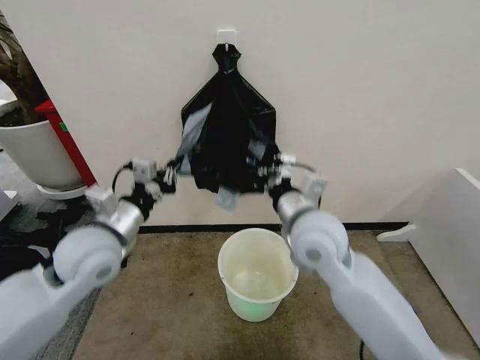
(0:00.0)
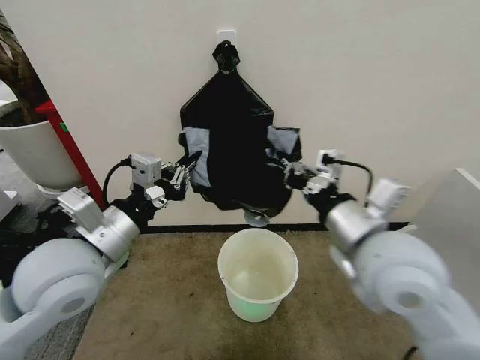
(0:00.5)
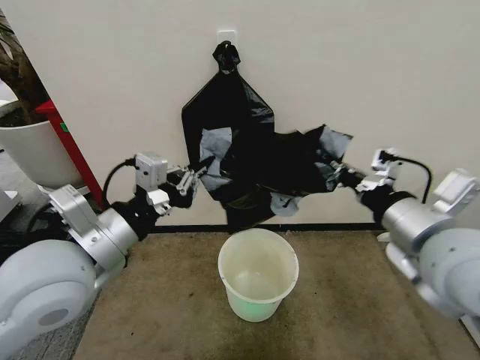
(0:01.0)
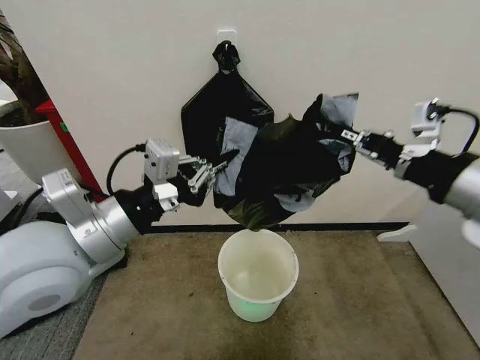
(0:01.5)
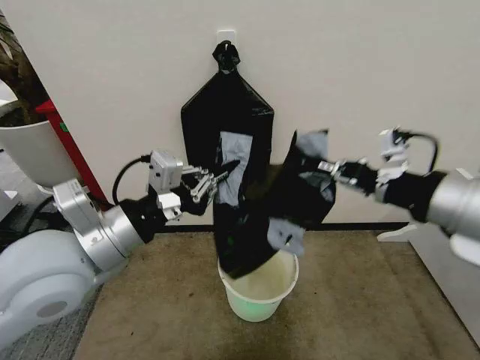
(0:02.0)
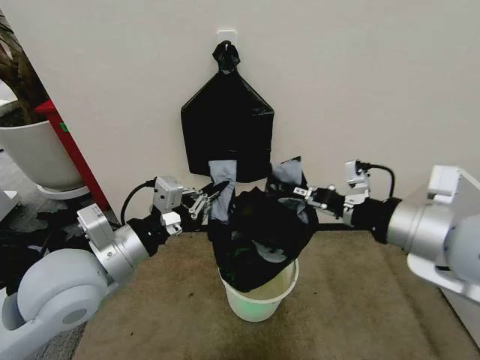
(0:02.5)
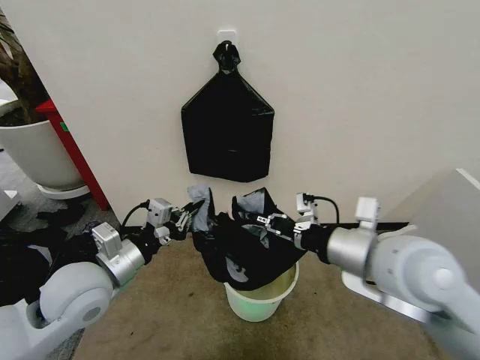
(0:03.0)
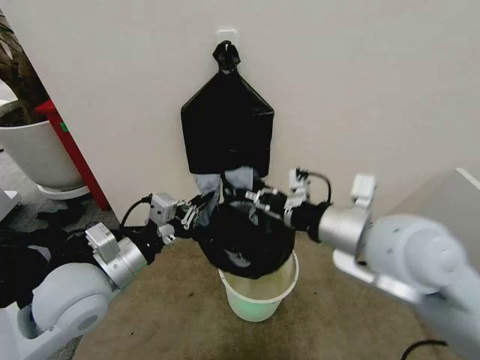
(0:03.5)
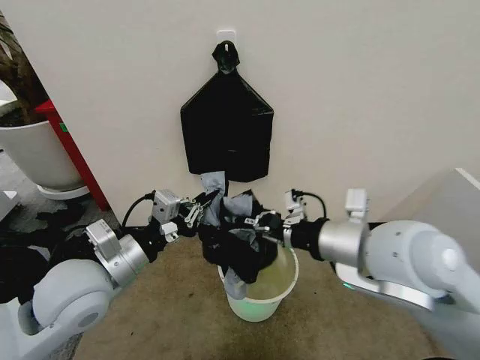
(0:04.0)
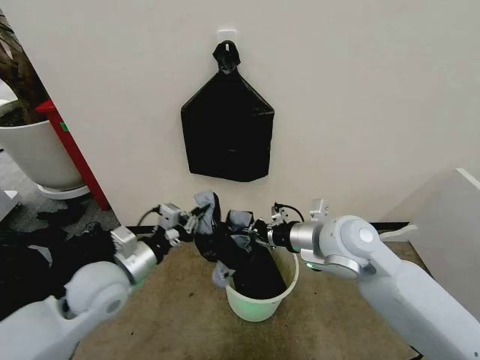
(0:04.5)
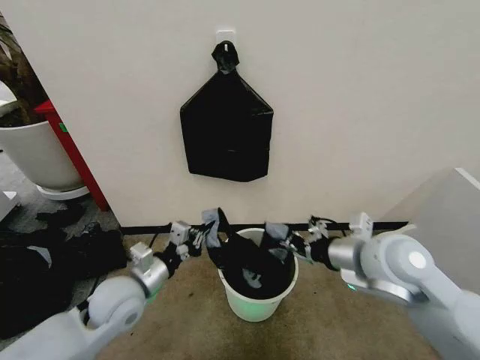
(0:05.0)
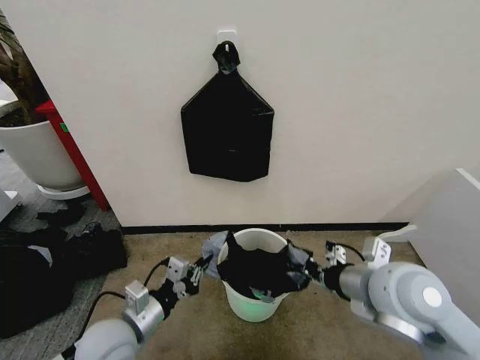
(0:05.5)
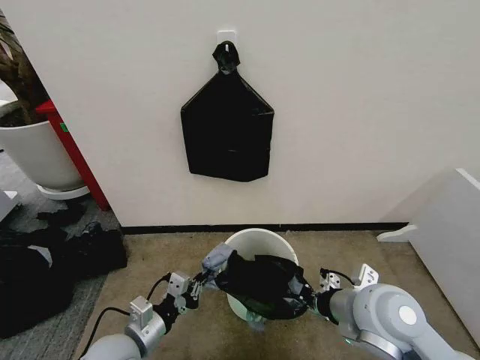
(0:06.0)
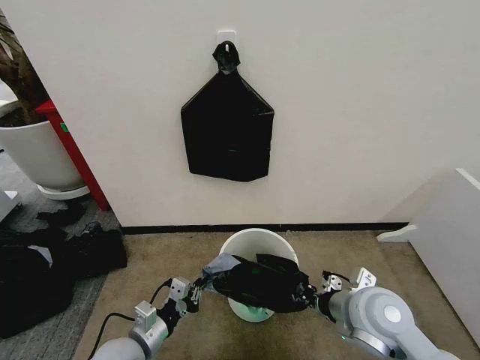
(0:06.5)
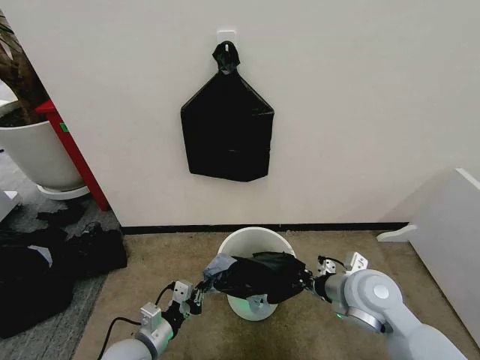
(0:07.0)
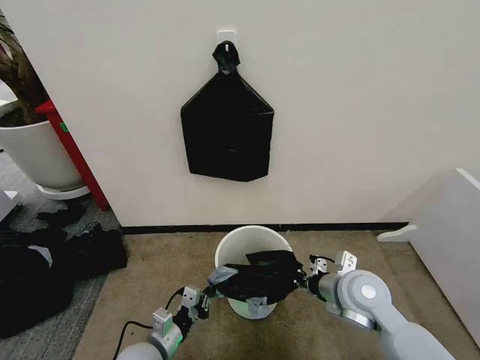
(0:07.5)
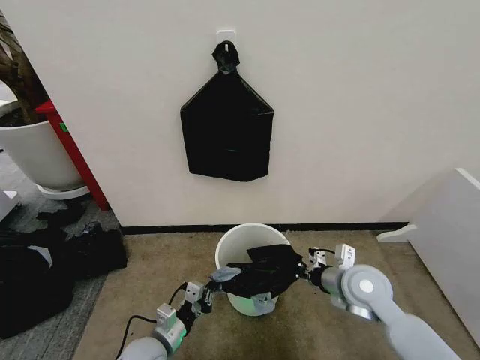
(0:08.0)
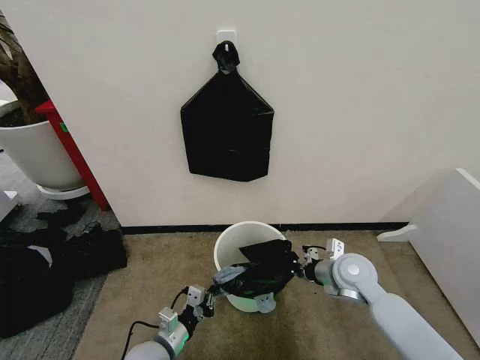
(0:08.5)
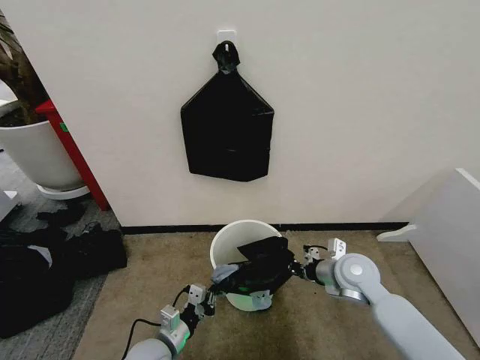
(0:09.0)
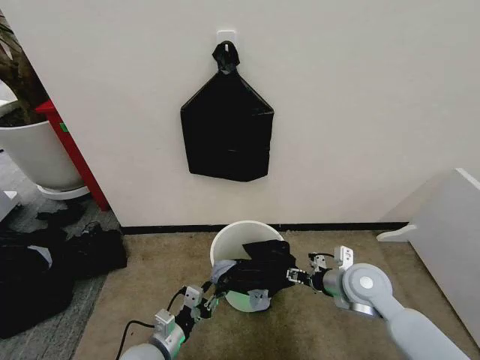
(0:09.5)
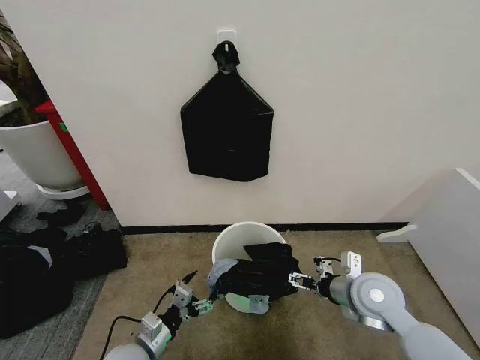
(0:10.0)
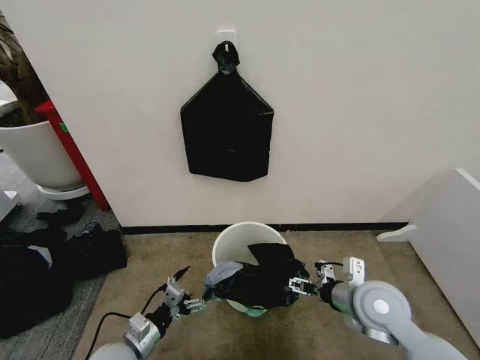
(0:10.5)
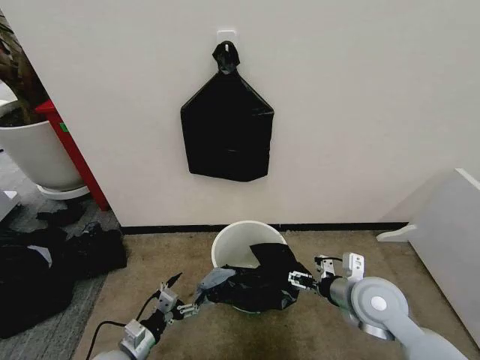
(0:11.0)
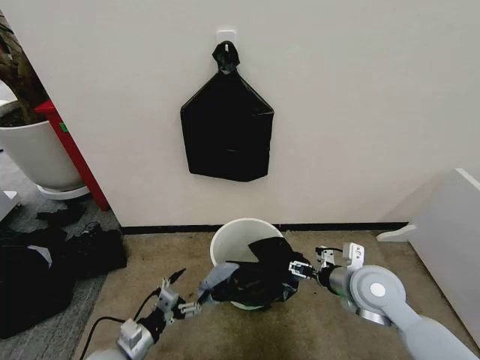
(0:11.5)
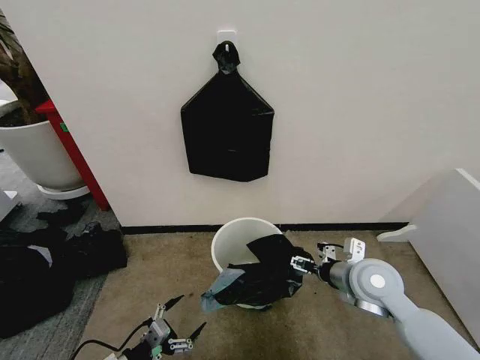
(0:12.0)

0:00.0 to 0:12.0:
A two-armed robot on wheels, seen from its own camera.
Task of the whole recording: Place the garbage bag over the trash bin.
0:00.0 to 0:02.0: The left gripper heads upward and backward, covering approximately 10 cm; the right gripper goes approximately 25 cm to the right, upward and backward.
0:02.0 to 0:04.0: The right gripper shifts approximately 10 cm to the left and downward, while the left gripper shifts approximately 10 cm downward.
0:04.0 to 0:06.0: Both grippers travel together downward, some 15 cm.
0:06.0 to 0:08.0: The right gripper heads downward and forward, covering some 10 cm, while the left gripper goes about 10 cm downward.
0:08.0 to 0:10.0: The right gripper opens; the left gripper opens up.
0:10.0 to 0:12.0: The left gripper is displaced to the left and backward by about 10 cm.

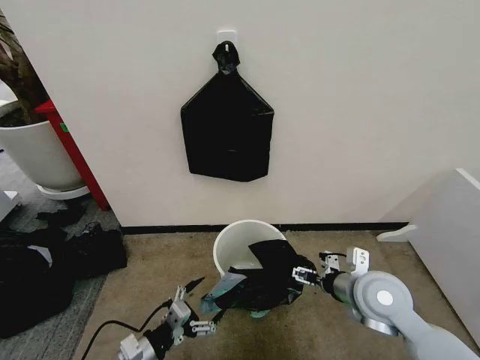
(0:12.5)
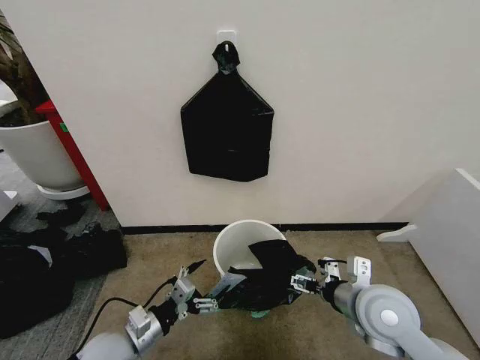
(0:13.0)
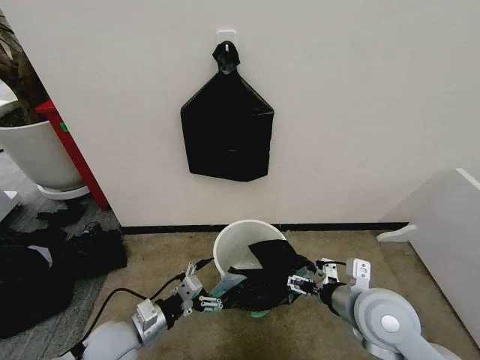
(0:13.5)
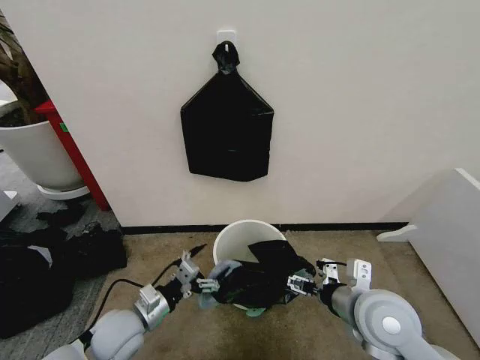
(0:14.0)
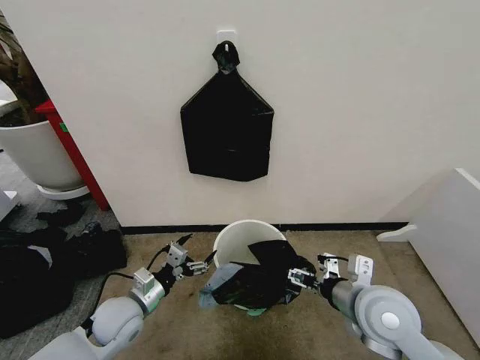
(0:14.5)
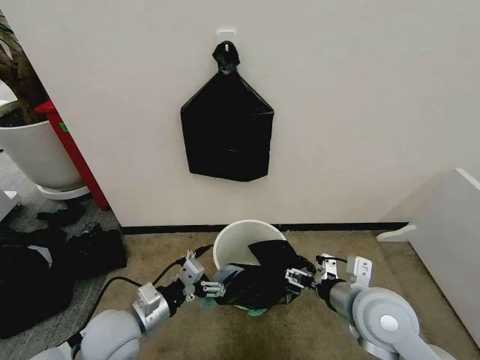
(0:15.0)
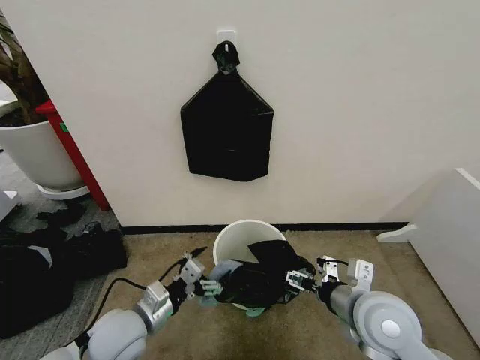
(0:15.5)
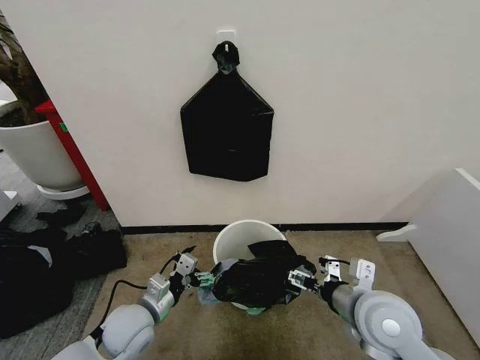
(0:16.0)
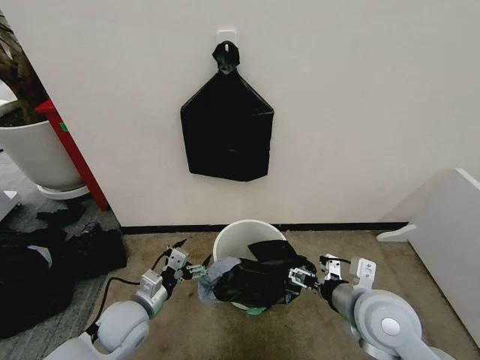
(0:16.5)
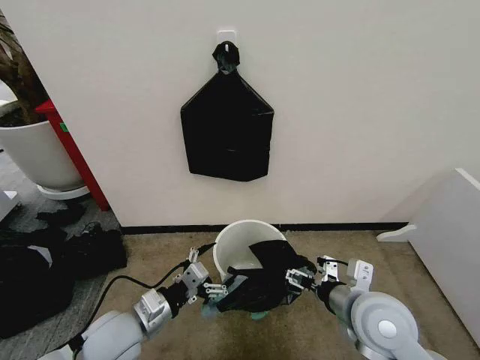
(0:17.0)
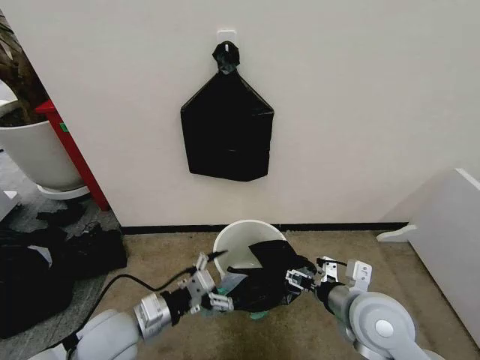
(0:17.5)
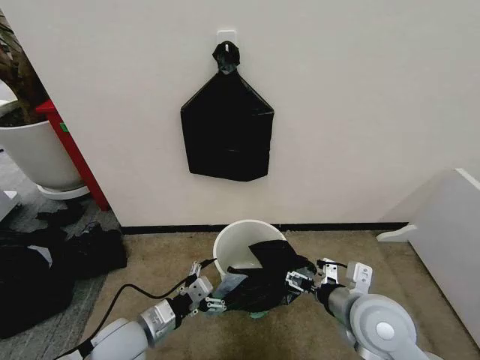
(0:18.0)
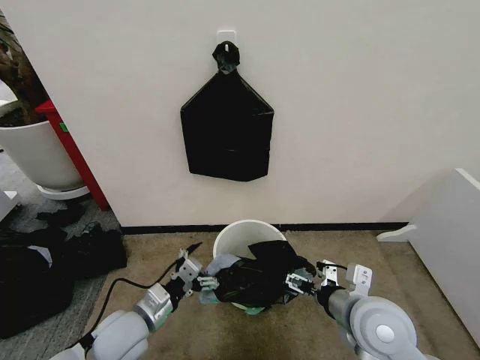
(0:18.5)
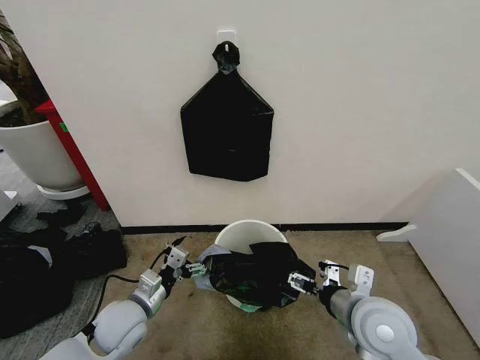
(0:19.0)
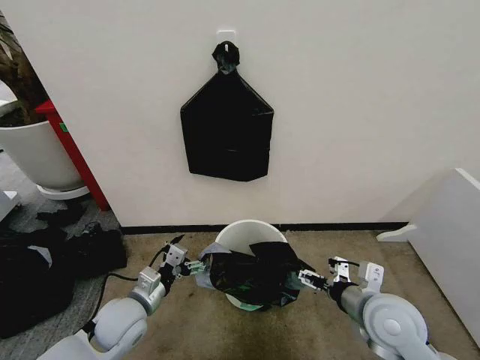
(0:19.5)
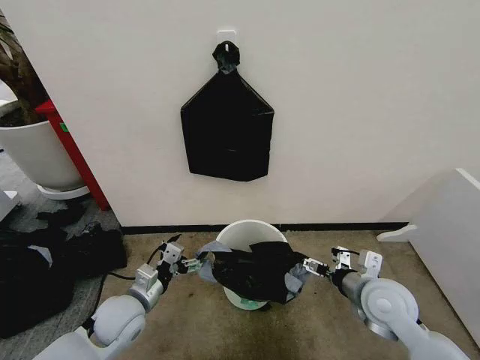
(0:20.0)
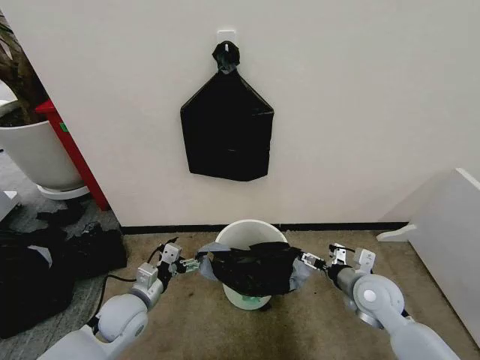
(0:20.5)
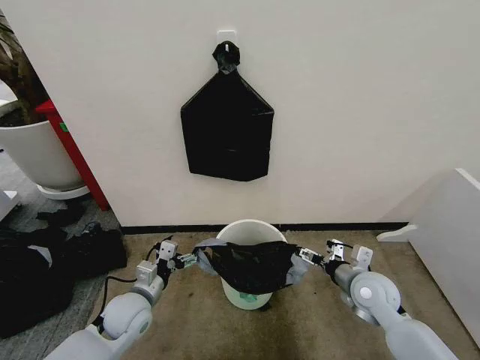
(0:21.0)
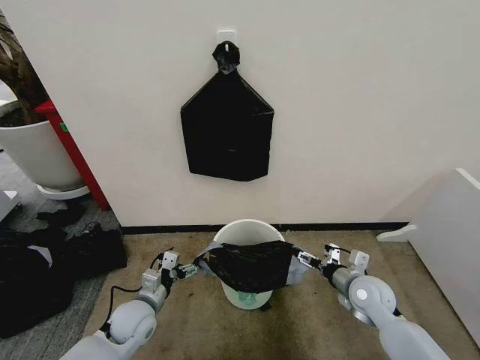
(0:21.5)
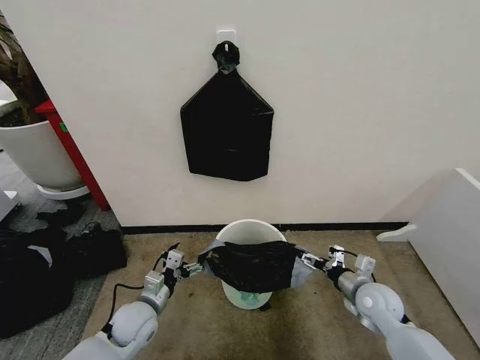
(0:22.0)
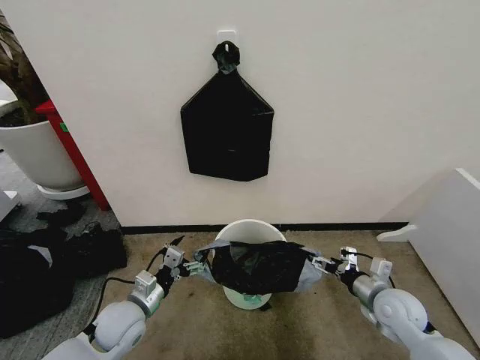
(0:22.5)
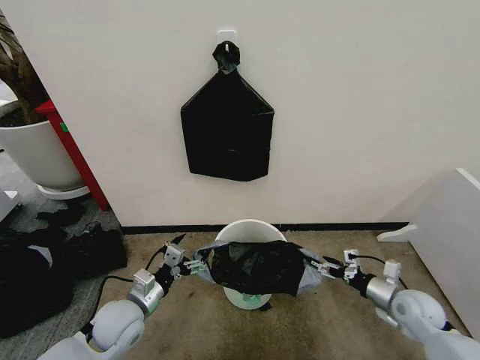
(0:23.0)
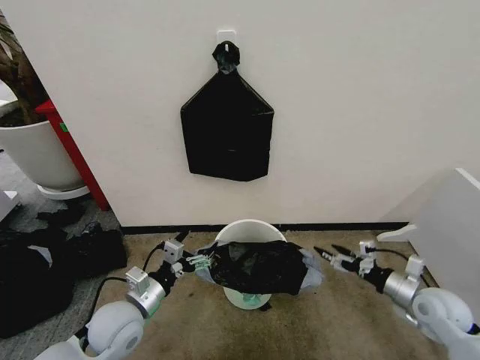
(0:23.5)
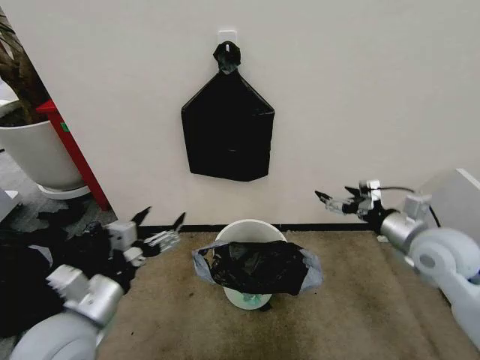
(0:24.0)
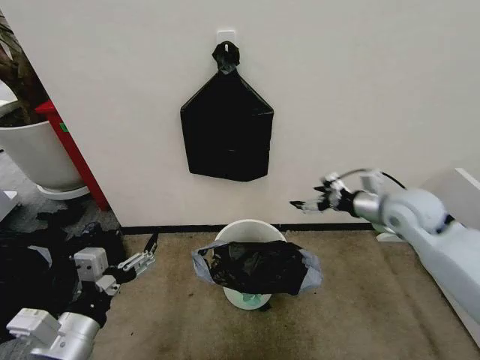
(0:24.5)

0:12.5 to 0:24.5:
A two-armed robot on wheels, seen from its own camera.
Task of the whole recording: Place the garbage bag over the trash bin.
0:12.5 to 0:14.5: The left gripper travels forward by approximately 10 cm.
0:18.5 to 0:20.5: The left gripper moves some 5 cm. The right gripper moves downward, forward and to the right, roughly 15 cm.
0:20.5 to 0:22.5: The right gripper is displaced to the right by roughly 5 cm.
0:22.5 to 0:24.5: The right gripper heads upward and forward, covering approximately 25 cm. The left gripper is displaced upward and backward by about 20 cm.

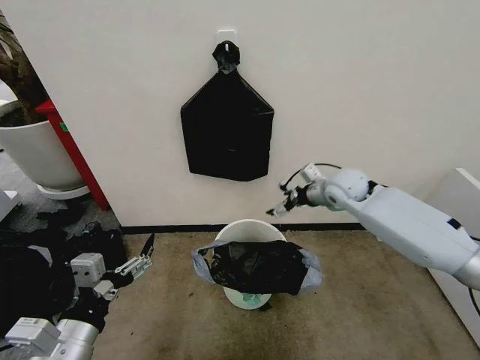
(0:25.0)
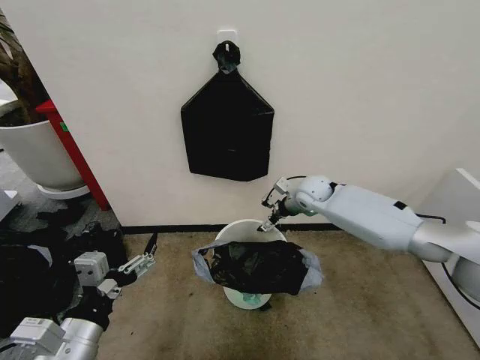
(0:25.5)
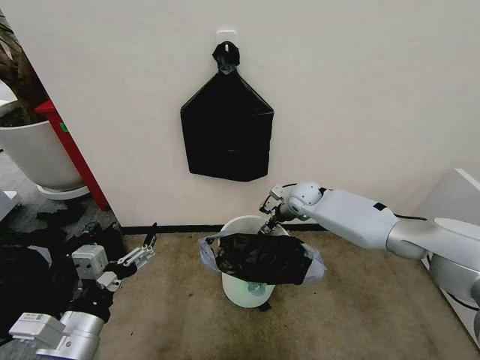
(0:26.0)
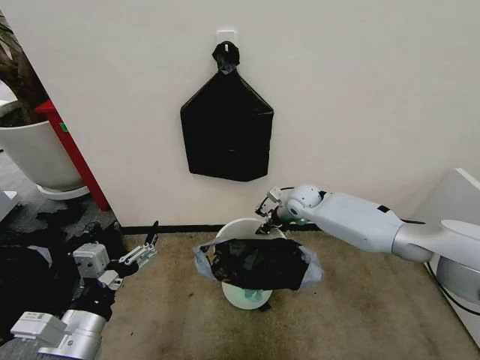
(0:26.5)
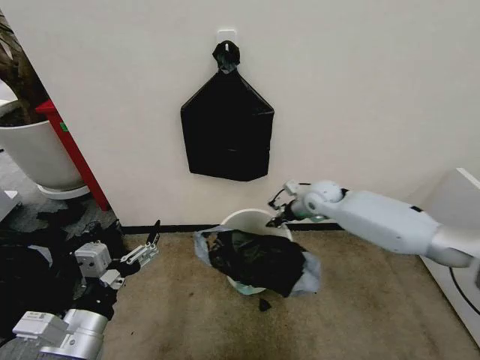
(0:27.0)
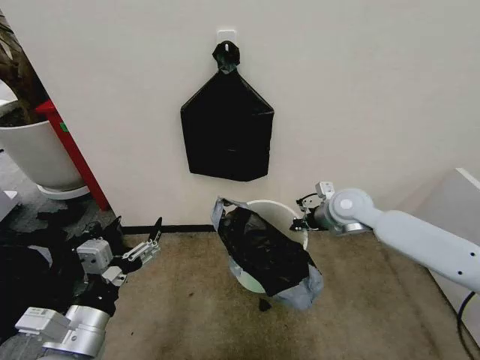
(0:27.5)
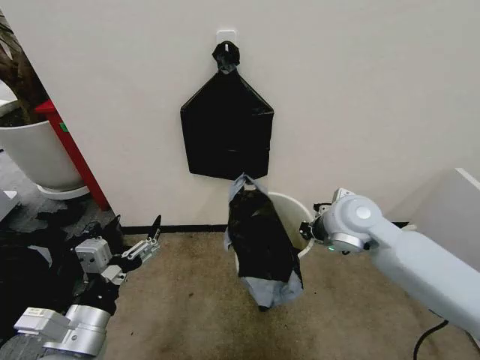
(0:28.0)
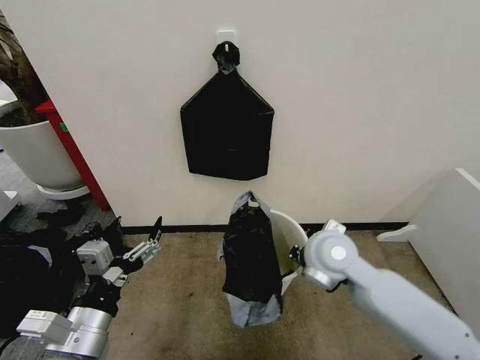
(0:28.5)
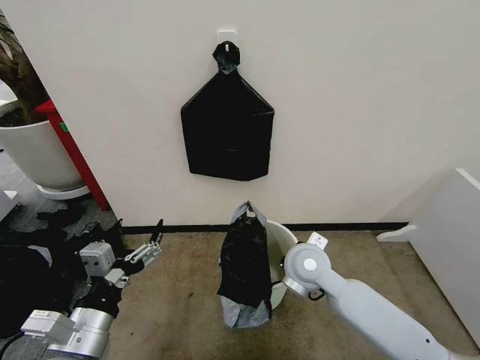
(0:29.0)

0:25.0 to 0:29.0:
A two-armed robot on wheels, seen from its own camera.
Task of the whole recording: Place the garbage bag over the trash bin.
0:25.0 to 0:27.0: The right gripper moves downward, roughly 5 cm, and closes up.
0:27.0 to 0:29.0: The right gripper travels backward and to the left by approximately 20 cm.
